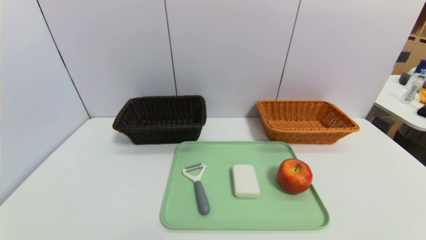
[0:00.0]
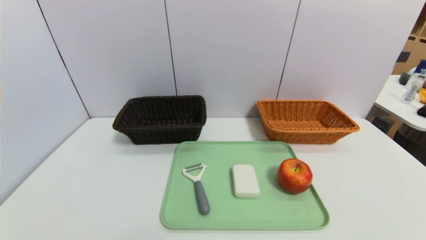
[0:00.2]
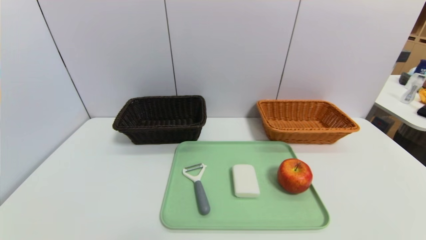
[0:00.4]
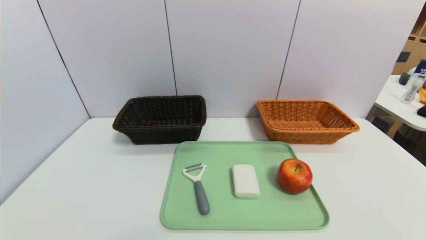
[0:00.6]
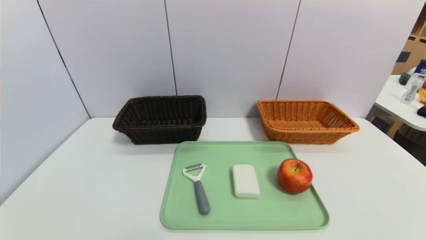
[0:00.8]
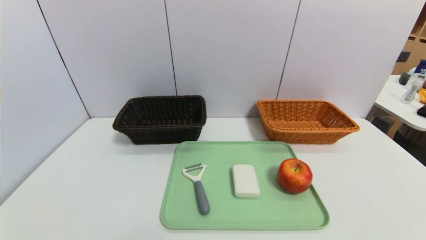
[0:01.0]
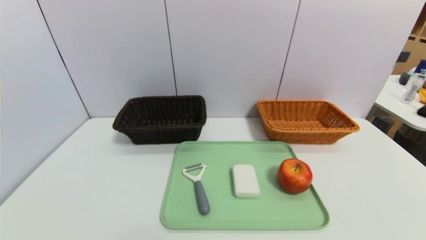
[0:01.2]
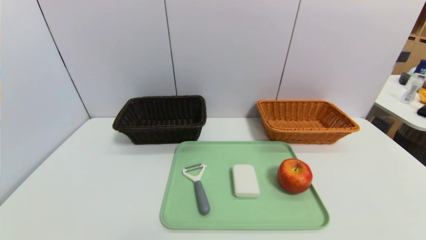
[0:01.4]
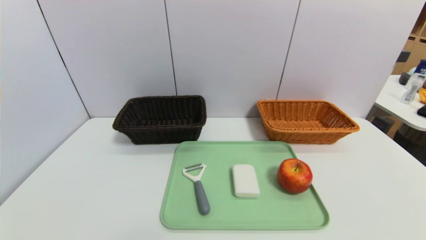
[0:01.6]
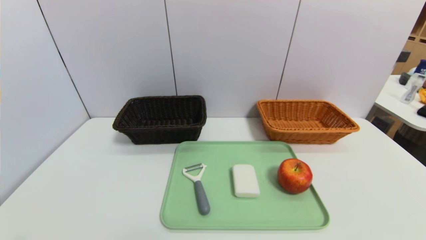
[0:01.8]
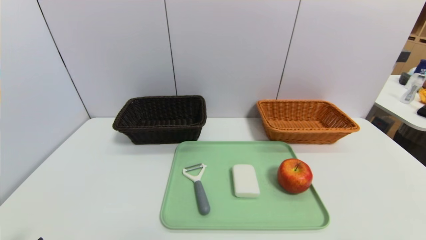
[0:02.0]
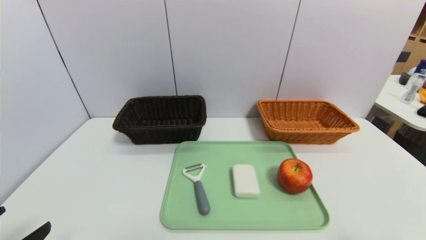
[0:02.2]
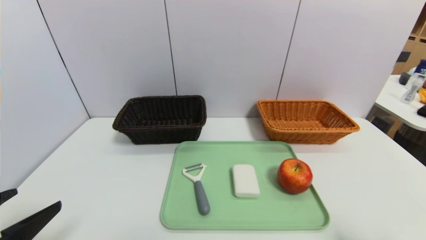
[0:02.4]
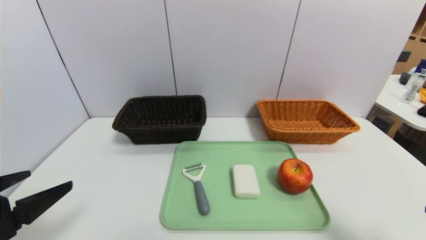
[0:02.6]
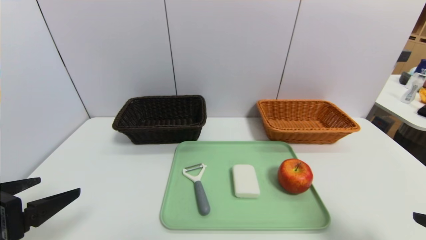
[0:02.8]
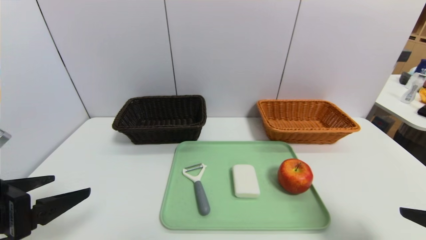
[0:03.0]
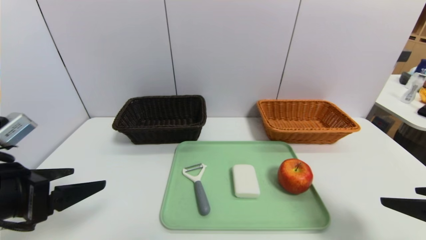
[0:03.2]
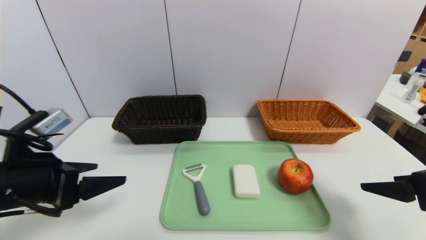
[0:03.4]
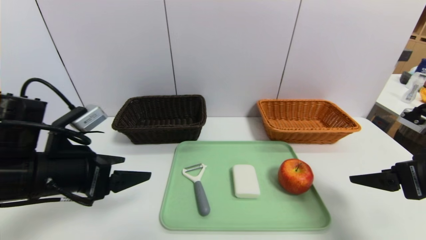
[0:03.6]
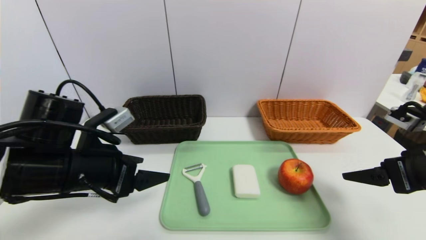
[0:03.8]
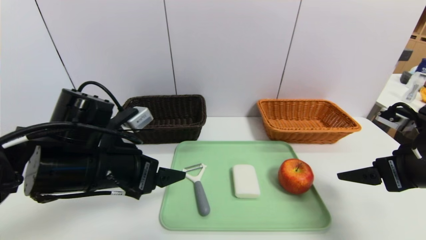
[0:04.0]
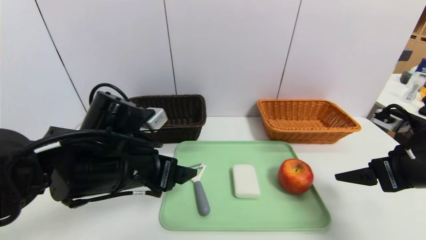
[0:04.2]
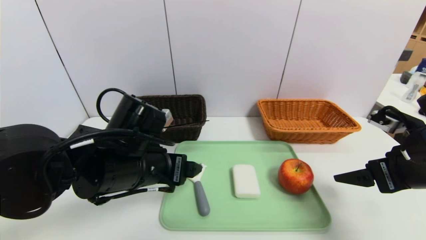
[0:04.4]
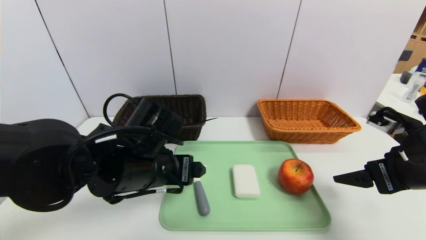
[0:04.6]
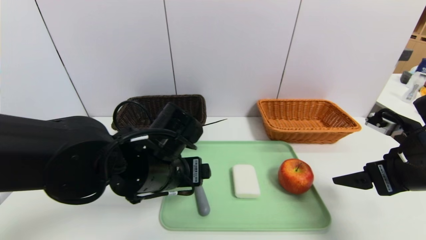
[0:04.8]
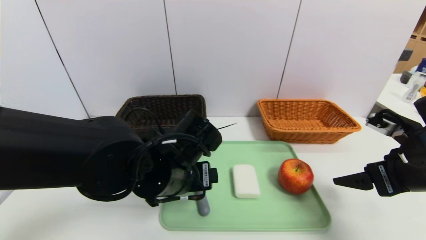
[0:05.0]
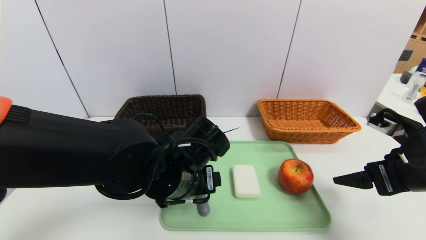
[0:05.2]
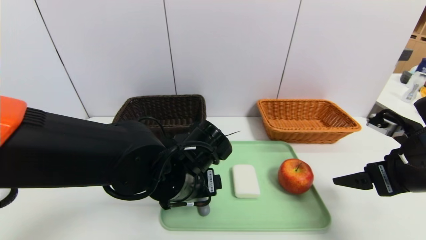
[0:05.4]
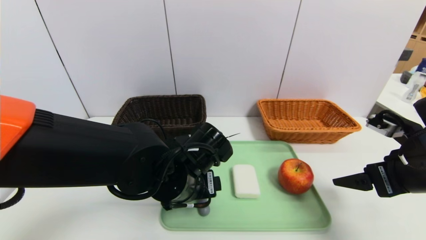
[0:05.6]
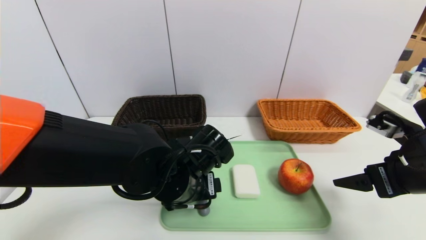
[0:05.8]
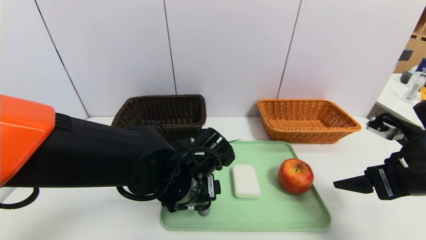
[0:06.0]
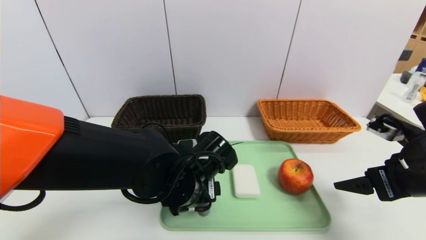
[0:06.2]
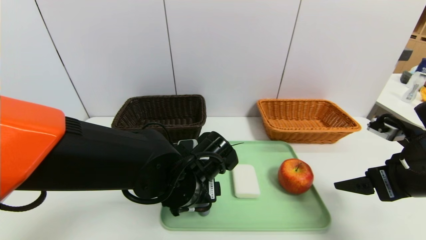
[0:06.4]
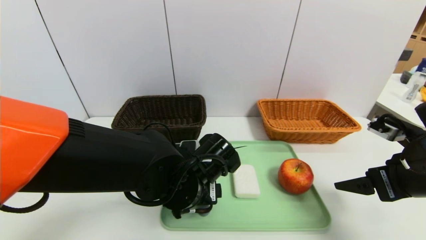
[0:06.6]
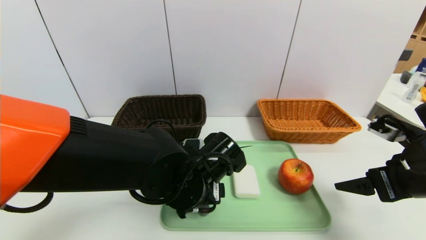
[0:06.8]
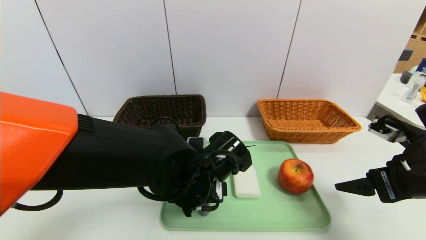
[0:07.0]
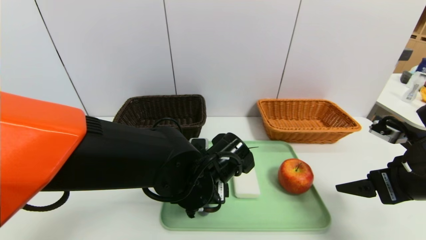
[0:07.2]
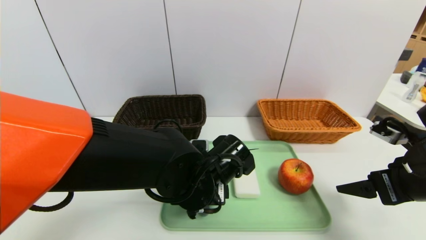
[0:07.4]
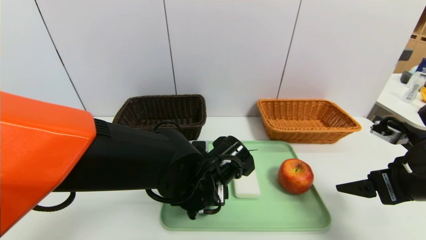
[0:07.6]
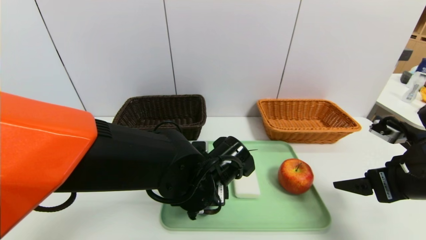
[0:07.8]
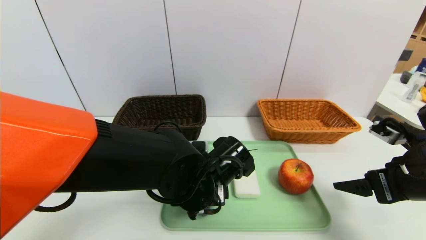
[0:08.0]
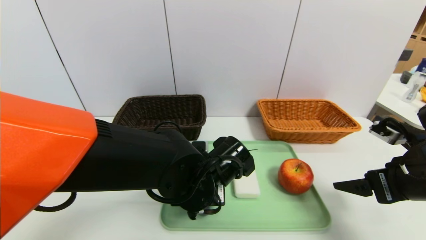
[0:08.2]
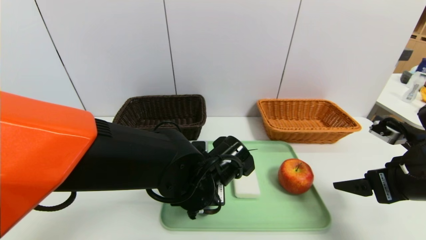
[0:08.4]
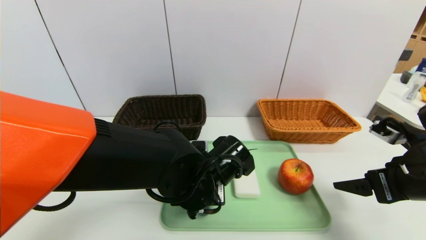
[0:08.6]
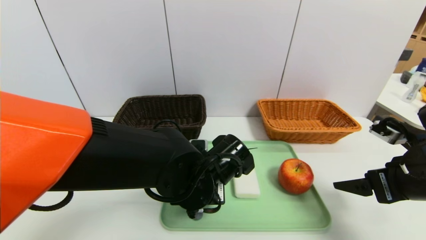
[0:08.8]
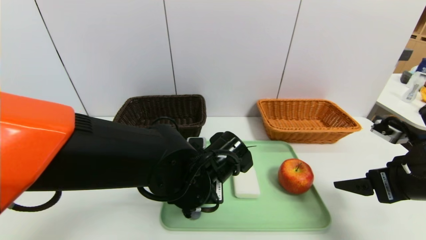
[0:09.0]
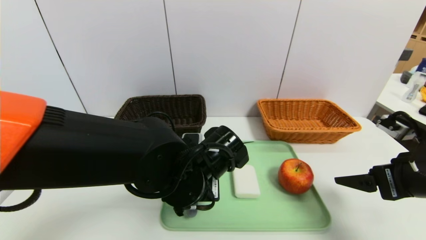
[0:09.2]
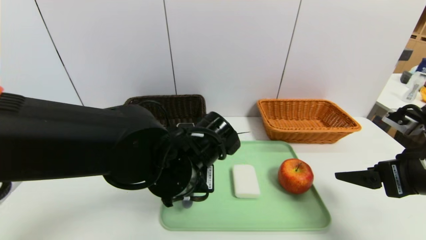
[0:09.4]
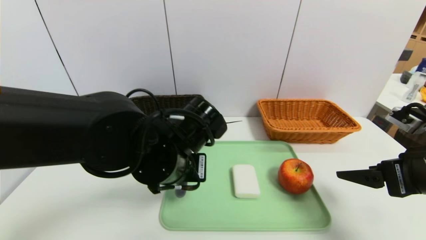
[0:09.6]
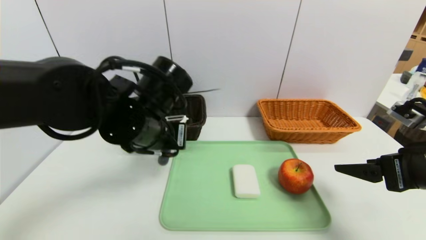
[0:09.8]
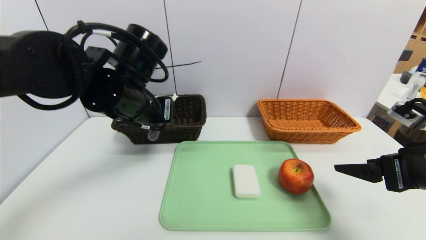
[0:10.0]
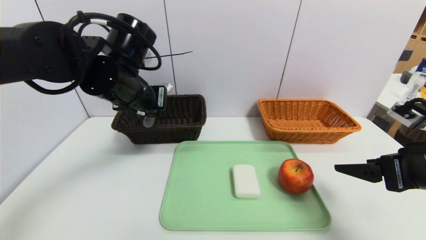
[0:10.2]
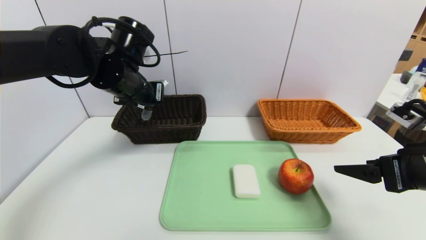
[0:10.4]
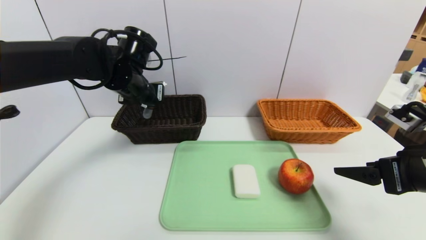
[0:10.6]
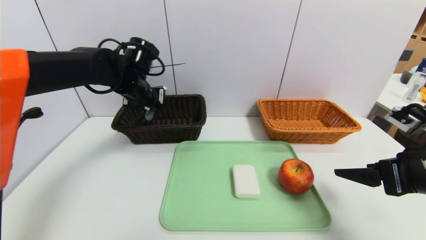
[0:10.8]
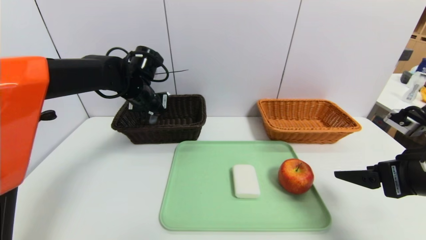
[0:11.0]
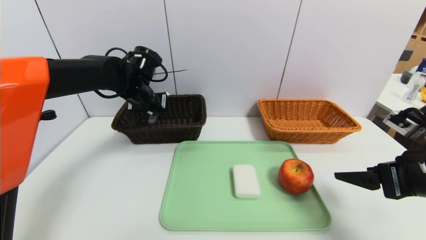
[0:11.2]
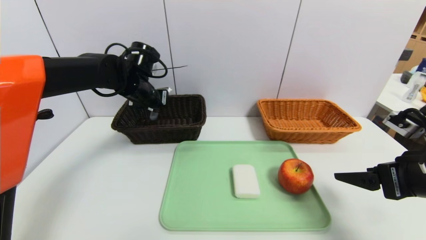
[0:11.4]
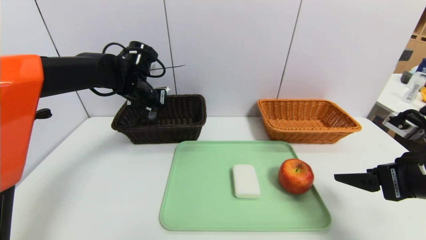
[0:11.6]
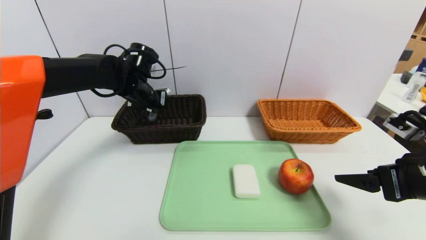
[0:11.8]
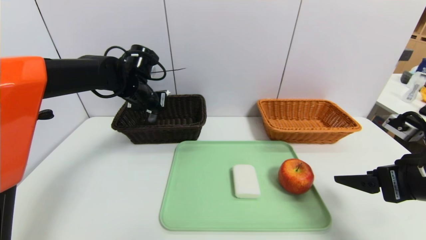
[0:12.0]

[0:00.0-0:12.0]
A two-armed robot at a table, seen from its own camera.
Task of the whole recording: place the food in the right basket with the right gripper, and place the non food items in the left basket with the left gripper.
0:01.6 to 0:03.0: Both grippers move forward and upward, roughly 15 cm.
0:03.0 to 0:04.4: The right gripper travels forward by roughly 10 cm. The left gripper goes some 20 cm to the right and forward.
0:04.4 to 0:06.0: The left gripper goes some 10 cm to the right and downward.
0:06.0 to 0:07.6: The grippers stay close to where they were, moving slightly.
0:07.6 to 0:09.0: The left gripper closes.
0:09.0 to 0:10.4: The left gripper is displaced upward, to the left and forward by some 20 cm.
0:10.4 to 0:12.0: The left gripper shifts approximately 10 cm forward and downward.

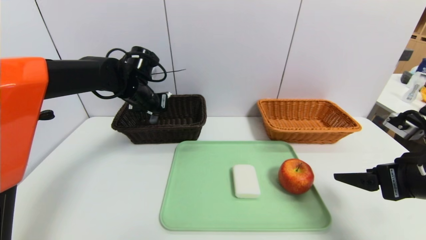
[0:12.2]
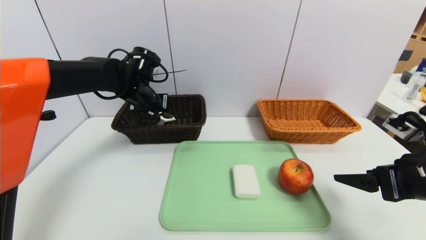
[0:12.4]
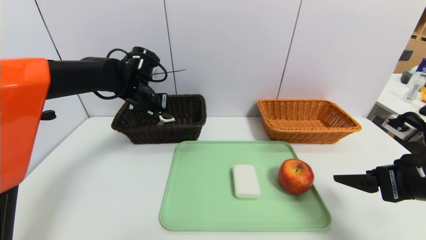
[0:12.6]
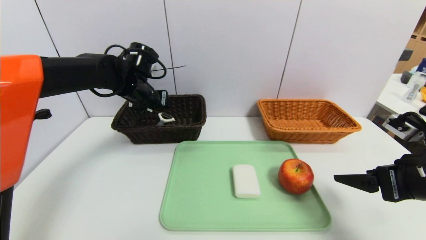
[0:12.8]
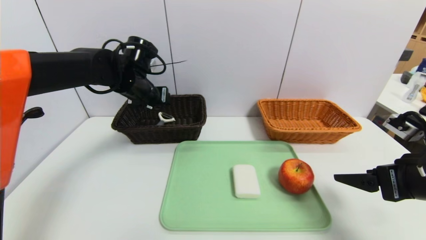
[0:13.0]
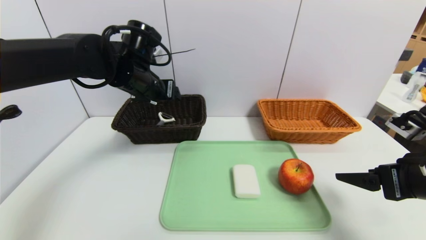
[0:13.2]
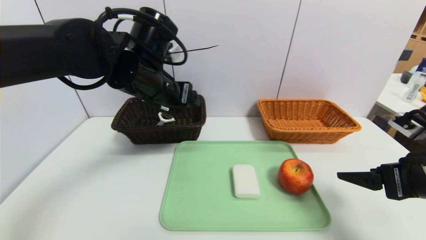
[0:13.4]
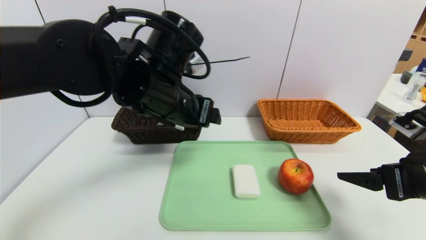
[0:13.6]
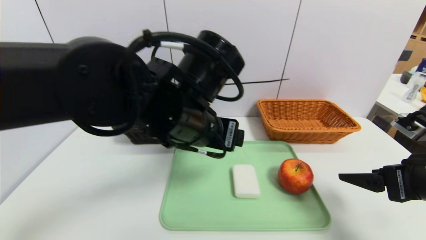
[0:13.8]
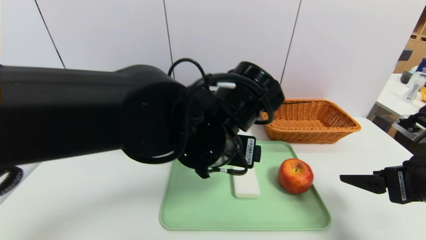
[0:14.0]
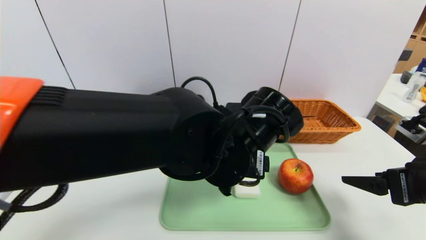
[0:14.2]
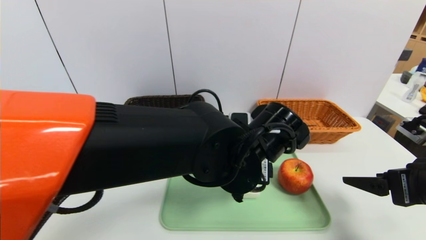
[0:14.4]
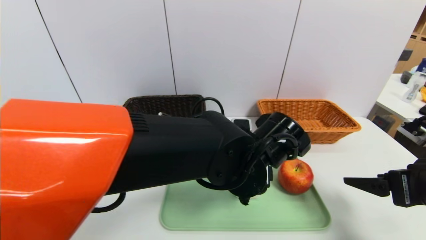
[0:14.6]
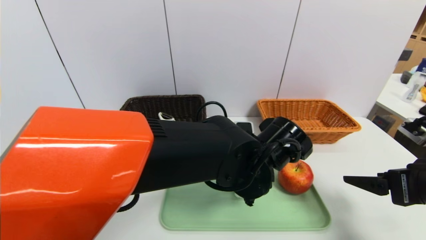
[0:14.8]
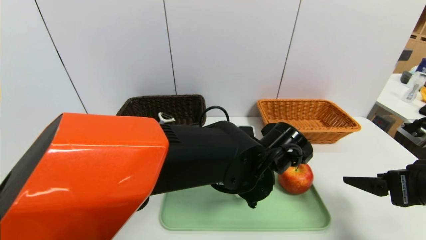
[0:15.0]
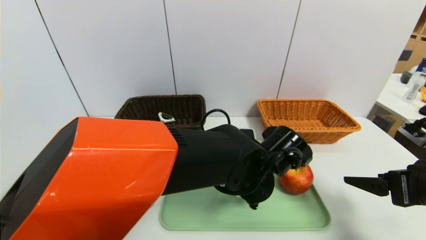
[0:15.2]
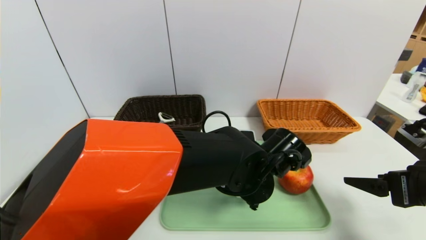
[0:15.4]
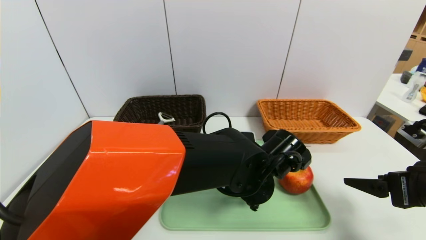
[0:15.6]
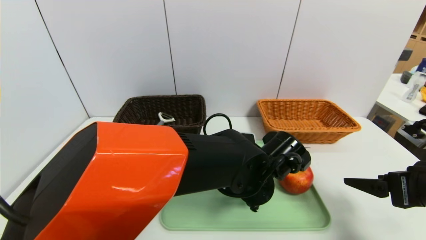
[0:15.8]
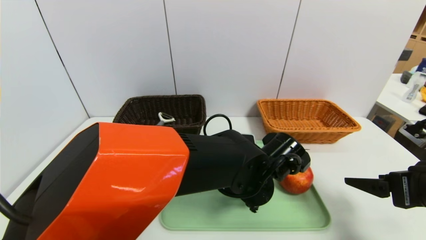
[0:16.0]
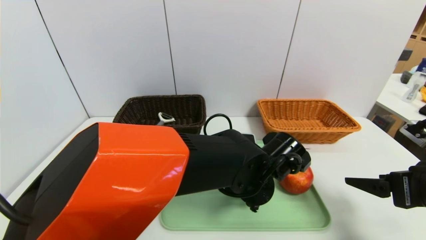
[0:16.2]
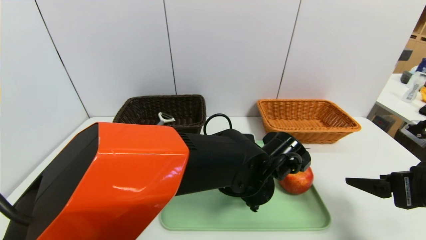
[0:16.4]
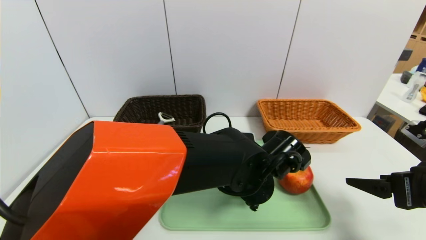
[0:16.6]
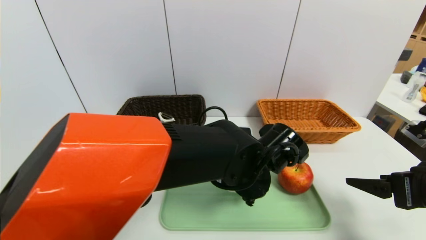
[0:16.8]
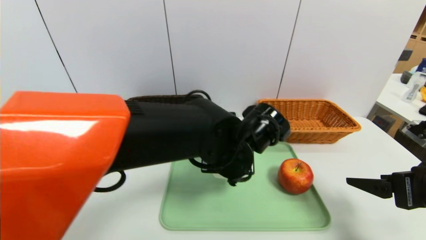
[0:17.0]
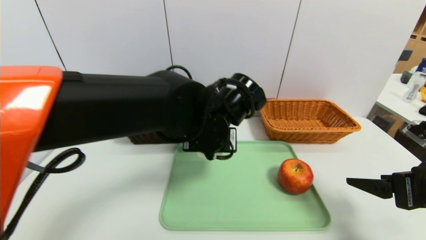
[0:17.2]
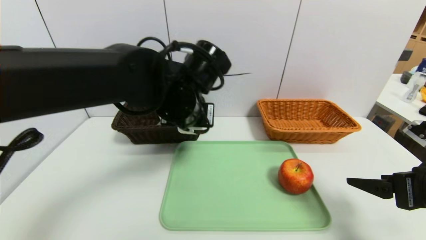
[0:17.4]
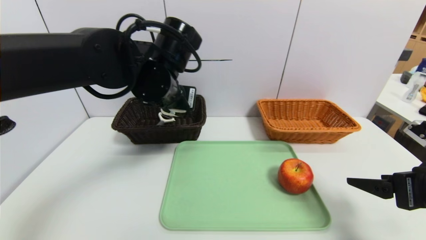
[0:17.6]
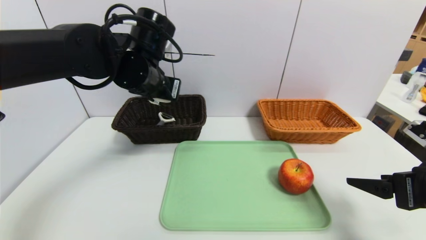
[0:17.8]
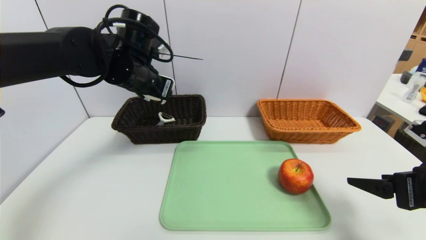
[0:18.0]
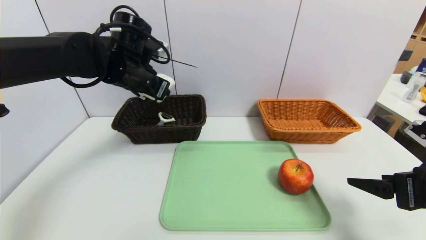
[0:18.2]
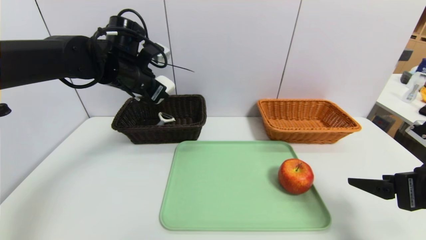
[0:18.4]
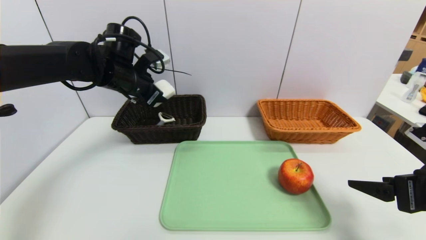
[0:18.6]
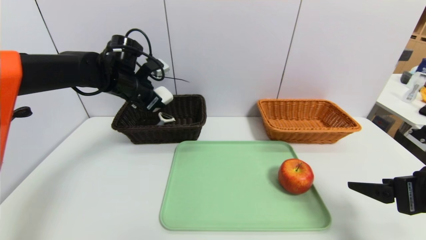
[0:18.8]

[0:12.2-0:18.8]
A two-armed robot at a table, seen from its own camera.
Task of the whole recording: place the food in the right basket with the right gripper, and place the non food items in the left basket with the left gripper.
0:12.2 to 0:13.8: The left gripper heads backward and to the right, covering approximately 25 cm, and opens its fingers.
0:13.8 to 0:15.4: The left gripper heads downward and to the right, covering about 15 cm.
0:15.4 to 0:17.2: The left gripper goes some 10 cm upward and to the left, and closes its fingers.
0:17.2 to 0:18.8: The left gripper moves to the left and forward, some 25 cm.
